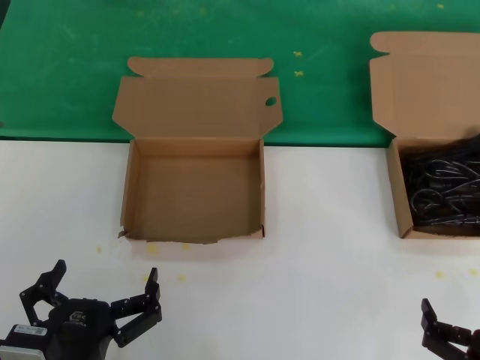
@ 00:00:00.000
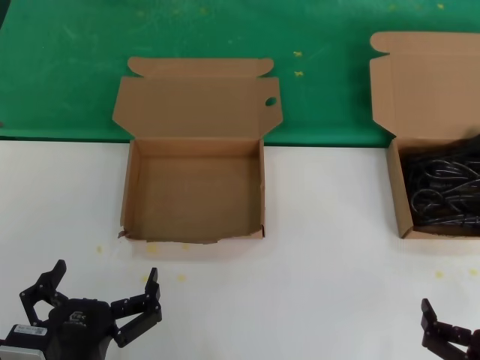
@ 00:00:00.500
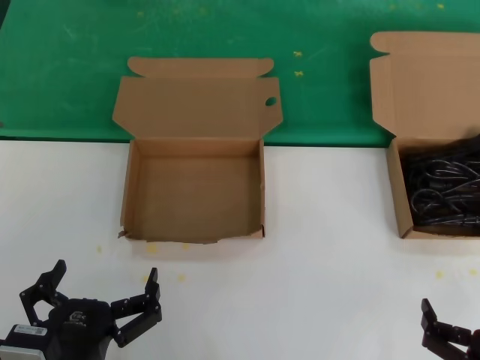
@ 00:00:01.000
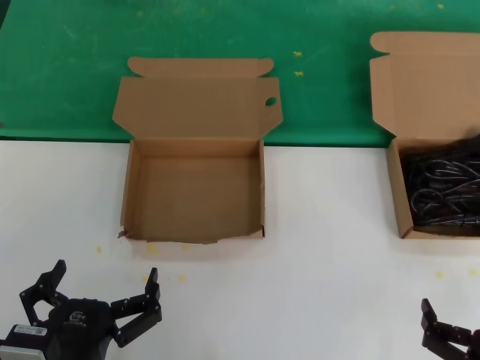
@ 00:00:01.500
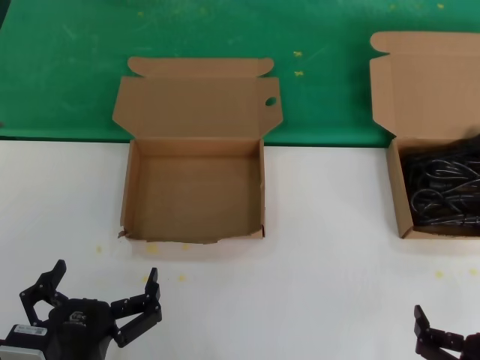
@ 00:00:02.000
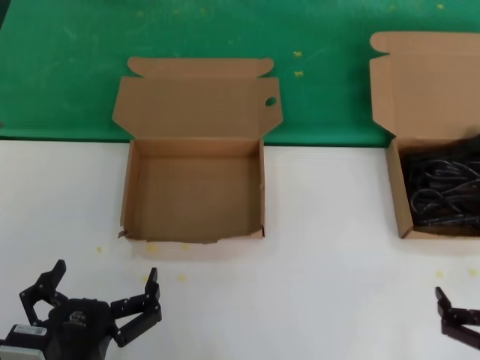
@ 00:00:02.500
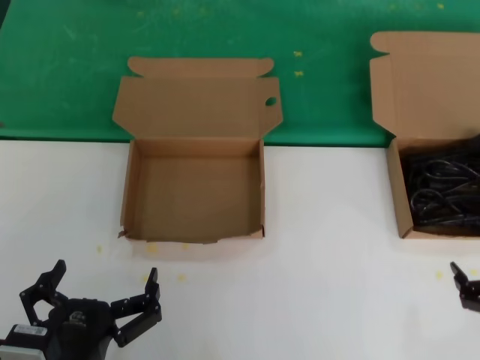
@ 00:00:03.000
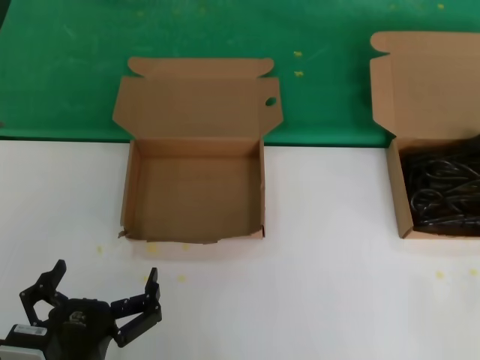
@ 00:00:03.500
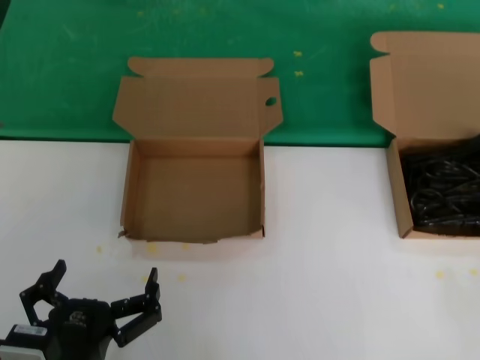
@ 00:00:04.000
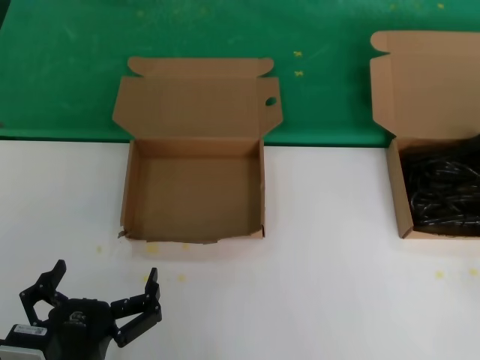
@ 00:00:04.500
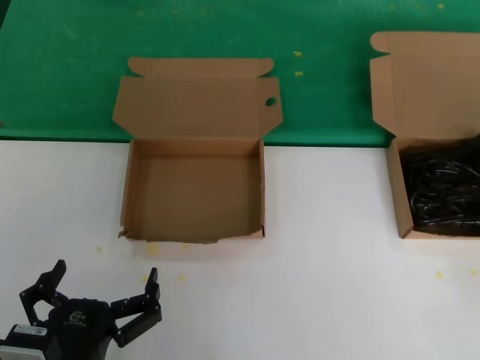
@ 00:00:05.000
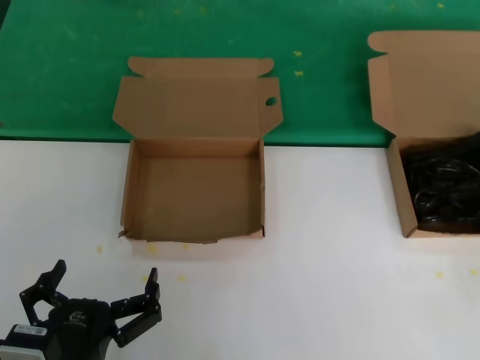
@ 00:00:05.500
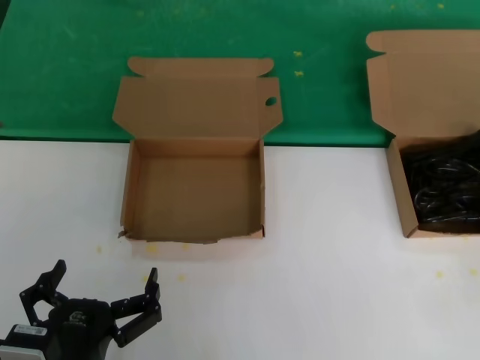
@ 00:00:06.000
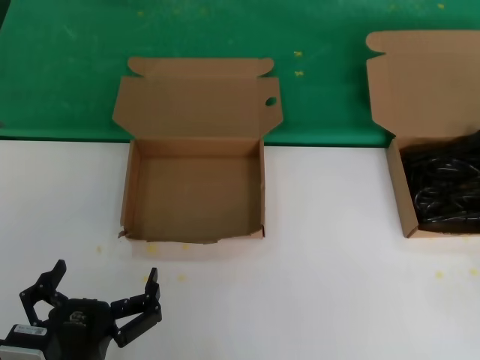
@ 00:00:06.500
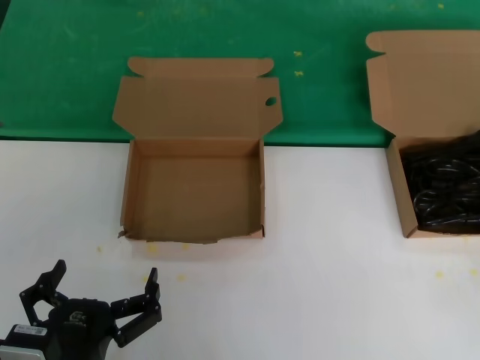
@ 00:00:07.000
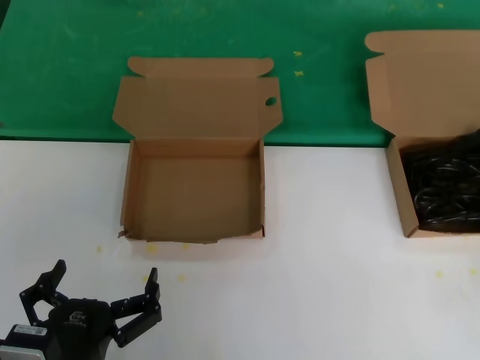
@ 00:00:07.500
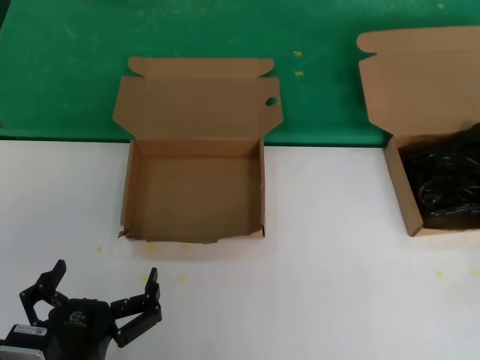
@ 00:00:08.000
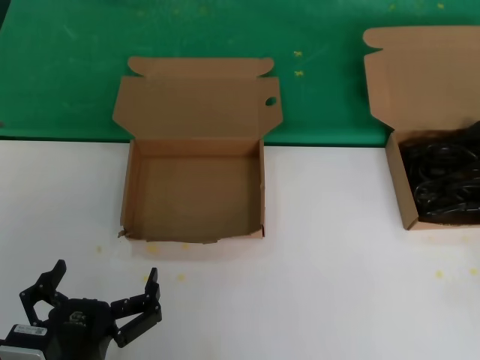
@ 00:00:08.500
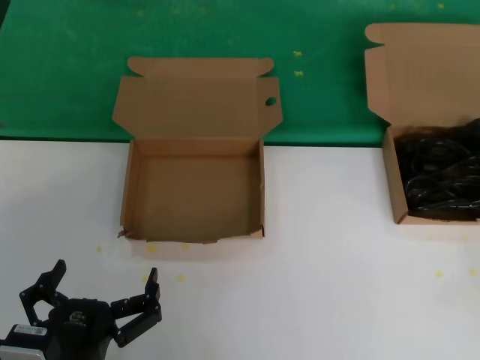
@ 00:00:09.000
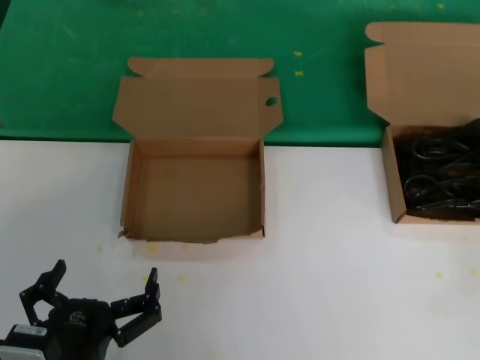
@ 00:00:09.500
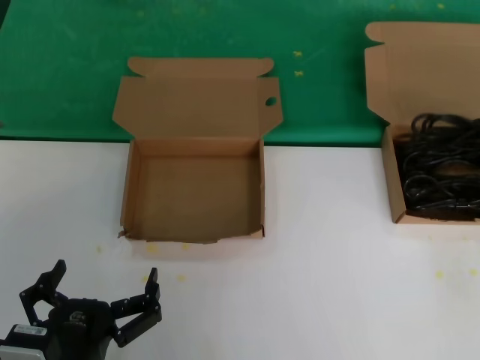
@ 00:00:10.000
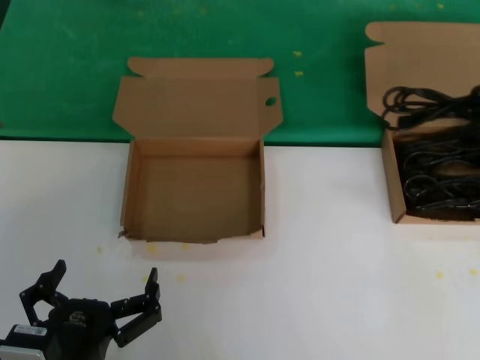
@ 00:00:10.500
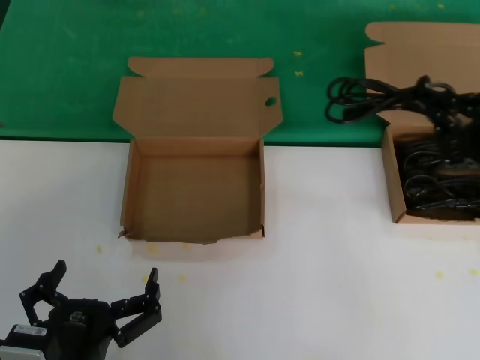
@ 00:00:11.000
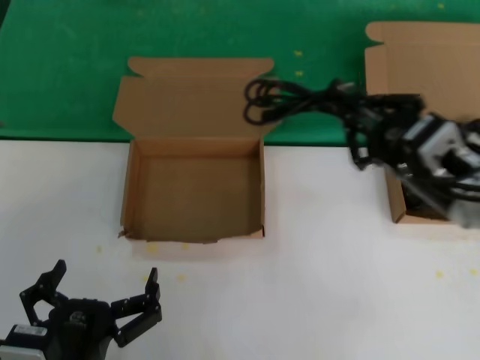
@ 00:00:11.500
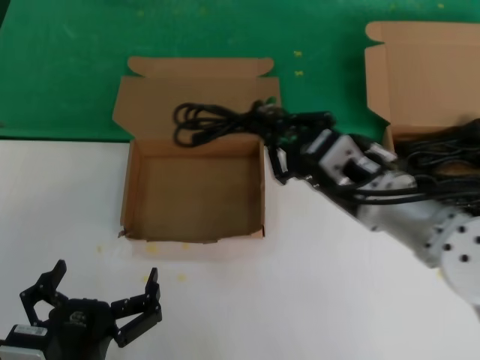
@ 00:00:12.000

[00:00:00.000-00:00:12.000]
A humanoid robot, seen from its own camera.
Task of the whole recording: take the parts from the box containing them and put them into an empty box.
Step, 00:00:00.000 to 00:00:09.500: Grasp the data cable.
00:00:00.000 to 00:00:02.000: Both hands stay about where they are.
00:00:02.000 to 00:00:04.000: The right hand shifts roughly 25 cm upward, to the right and forward.
00:00:04.000 to 00:00:06.000: The right hand goes about 10 cm forward.
00:00:06.000 to 00:00:08.000: There are only small adjustments of the hands.
00:00:08.000 to 00:00:10.000: The right hand goes approximately 5 cm upward.
00:00:10.000 to 00:00:12.000: The right hand goes some 30 cm to the left.

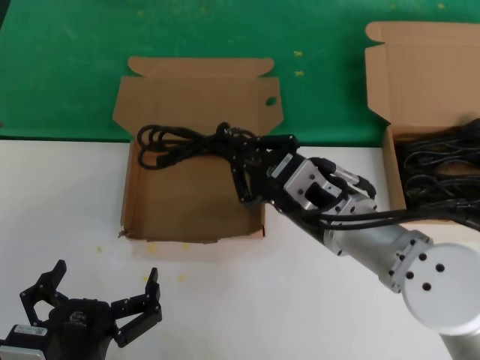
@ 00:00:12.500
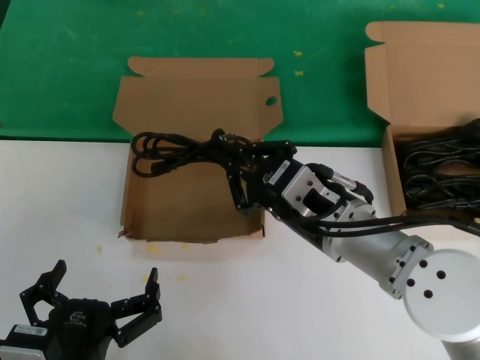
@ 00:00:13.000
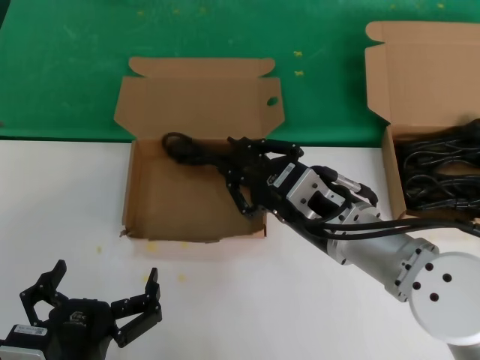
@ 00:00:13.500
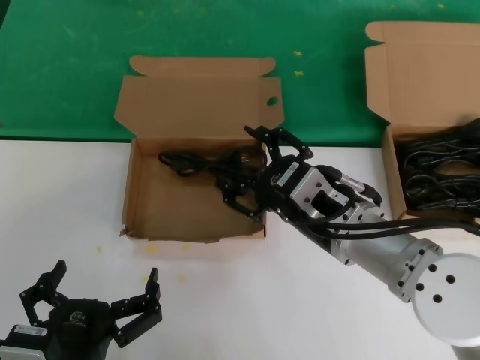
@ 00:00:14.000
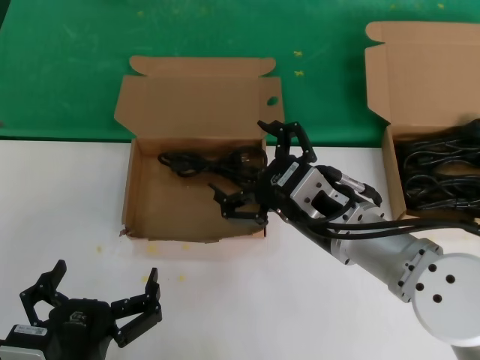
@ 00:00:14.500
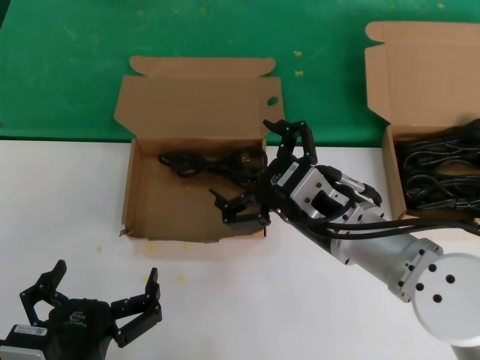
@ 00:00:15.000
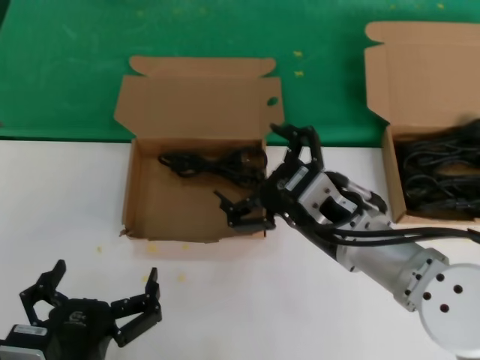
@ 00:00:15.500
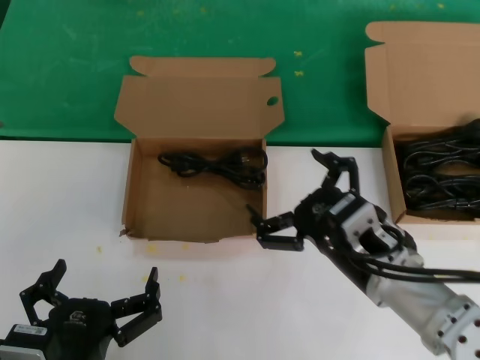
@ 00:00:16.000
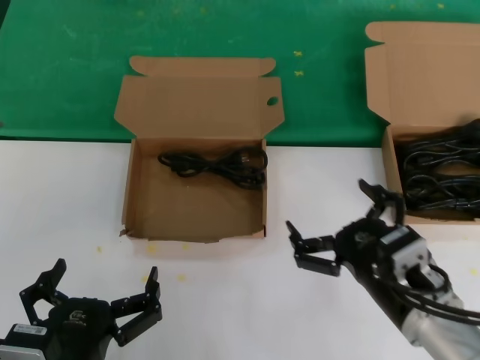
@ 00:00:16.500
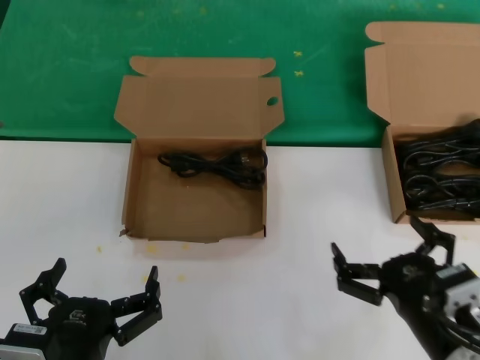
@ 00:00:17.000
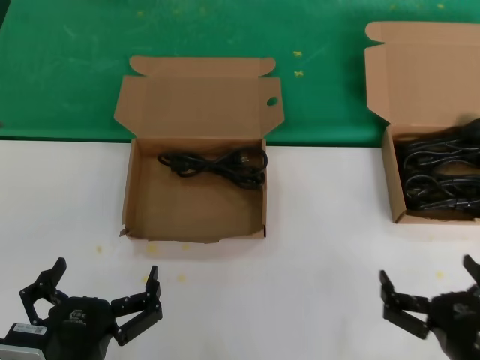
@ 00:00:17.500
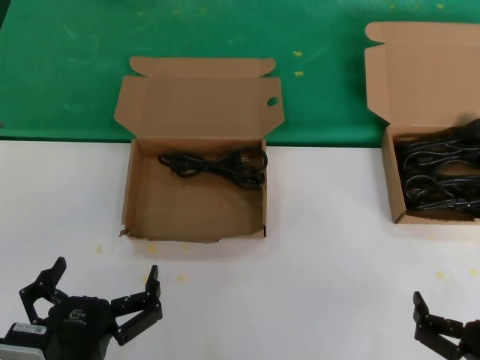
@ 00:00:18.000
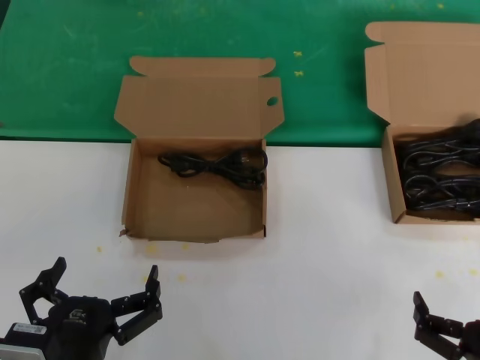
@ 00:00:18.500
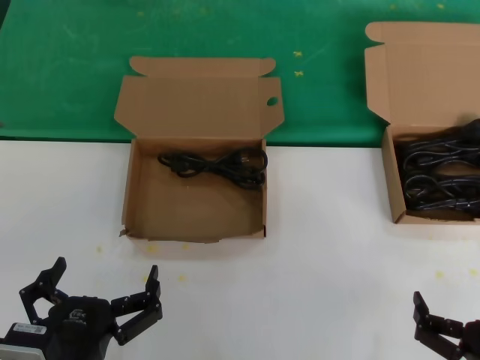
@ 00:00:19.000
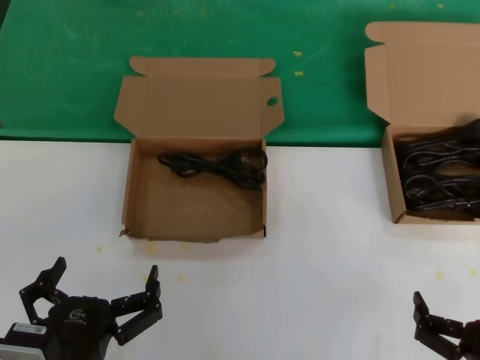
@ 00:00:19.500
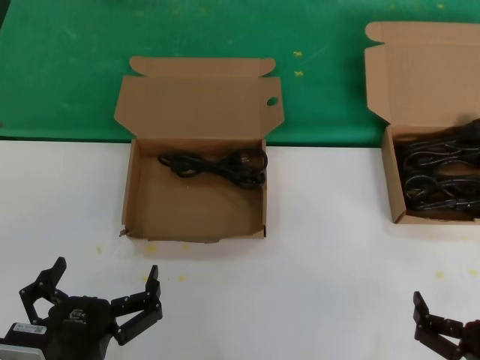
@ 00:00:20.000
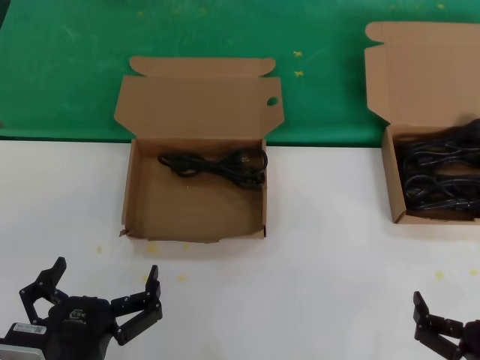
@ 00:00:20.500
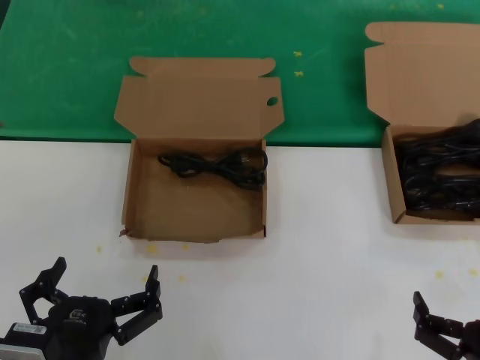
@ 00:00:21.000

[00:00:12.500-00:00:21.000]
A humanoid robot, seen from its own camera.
Task of the whole recording: take the parts from the box containing them and put them into an empty box.
00:00:12.500 to 00:00:14.500: Neither hand changes place.
00:00:14.500 to 00:00:16.500: The right hand travels downward and to the right by some 10 cm.
00:00:16.500 to 00:00:19.000: The right hand moves backward, to the right and downward, about 15 cm.
00:00:19.000 to 00:00:21.000: Both hands stay put.
